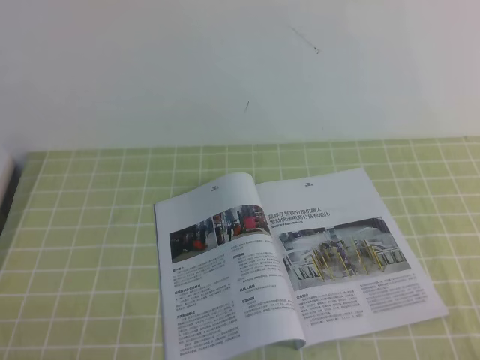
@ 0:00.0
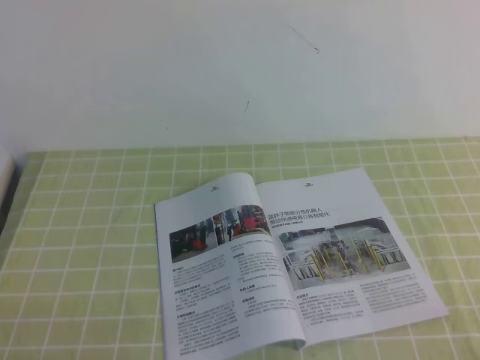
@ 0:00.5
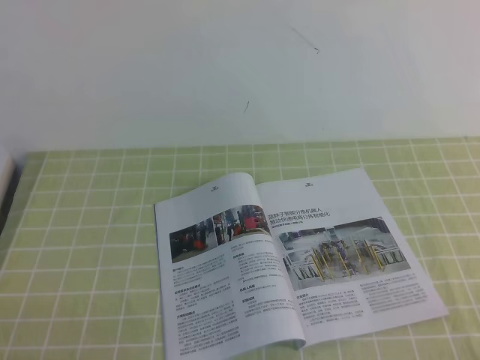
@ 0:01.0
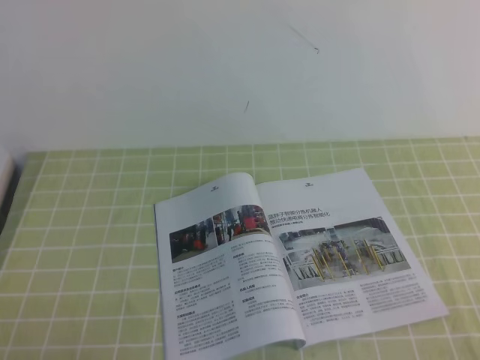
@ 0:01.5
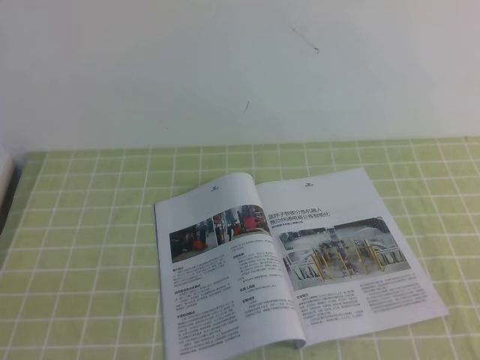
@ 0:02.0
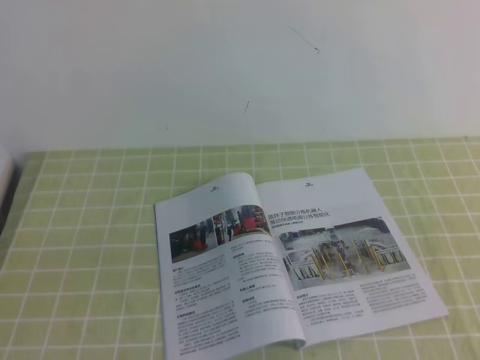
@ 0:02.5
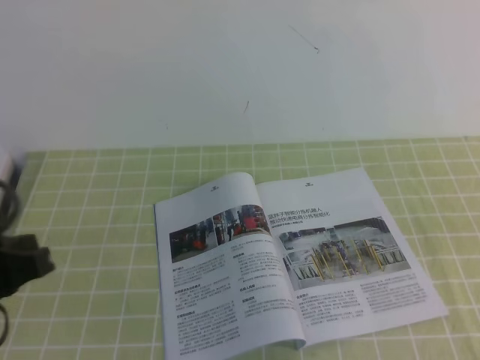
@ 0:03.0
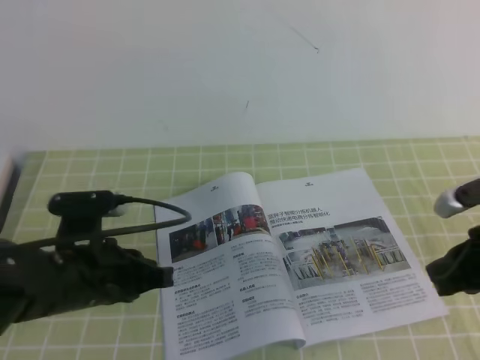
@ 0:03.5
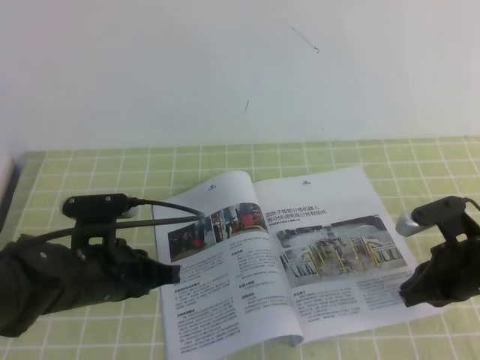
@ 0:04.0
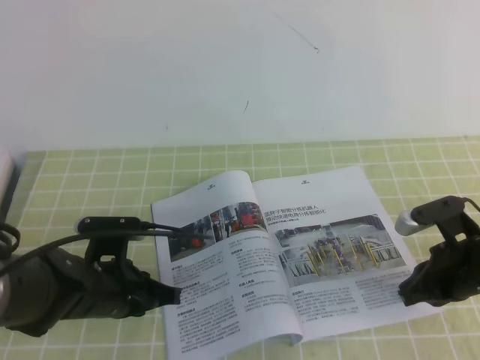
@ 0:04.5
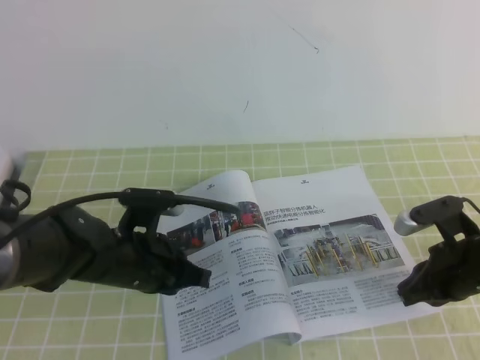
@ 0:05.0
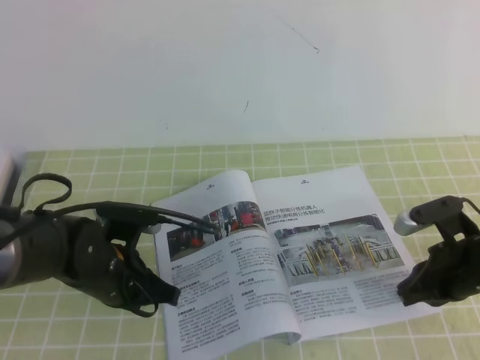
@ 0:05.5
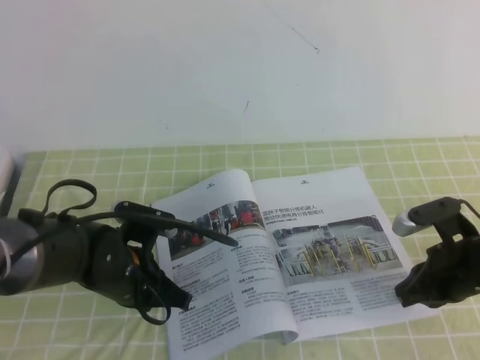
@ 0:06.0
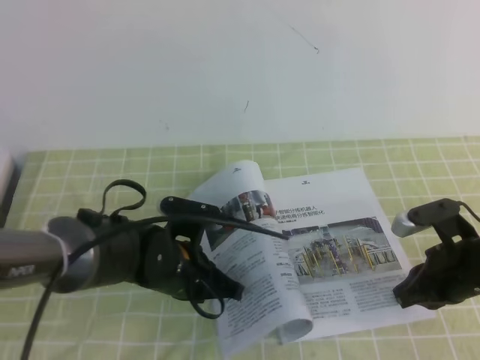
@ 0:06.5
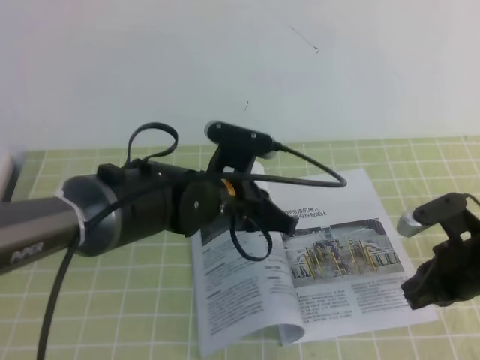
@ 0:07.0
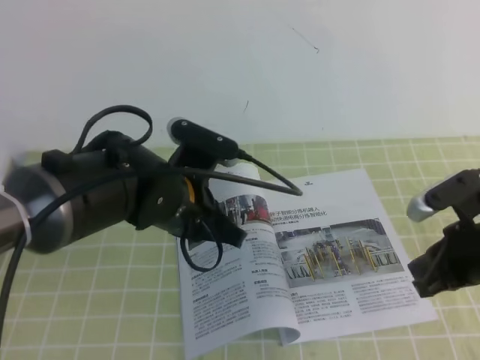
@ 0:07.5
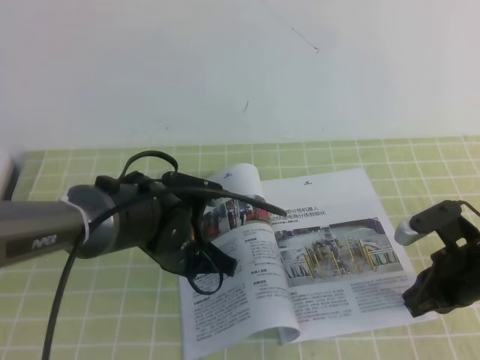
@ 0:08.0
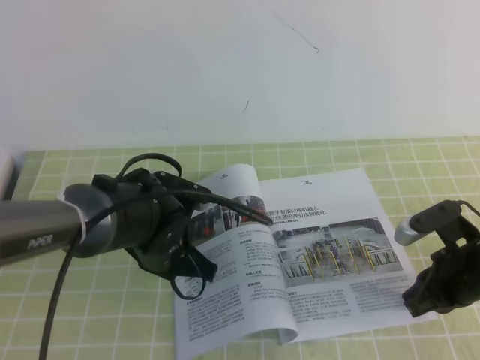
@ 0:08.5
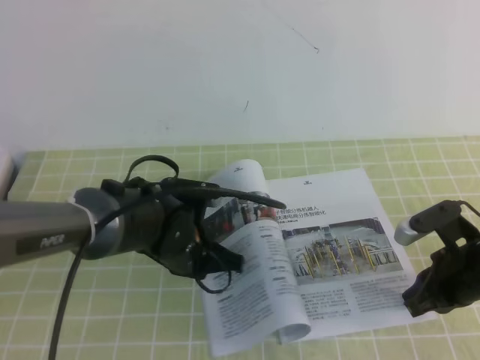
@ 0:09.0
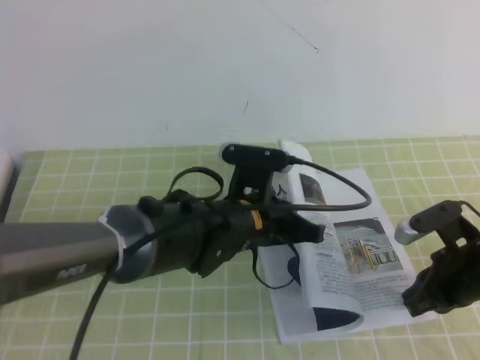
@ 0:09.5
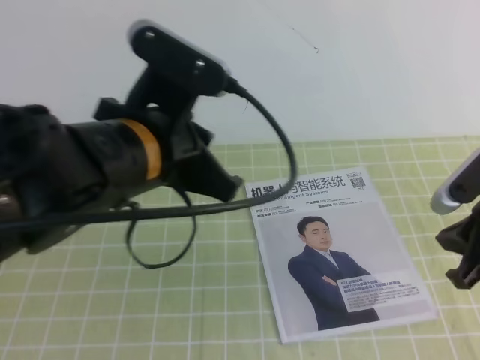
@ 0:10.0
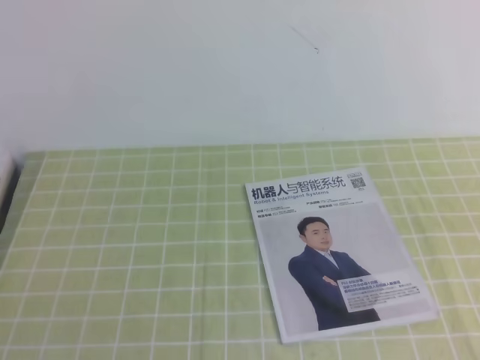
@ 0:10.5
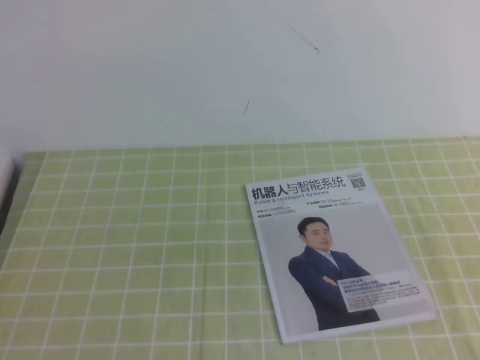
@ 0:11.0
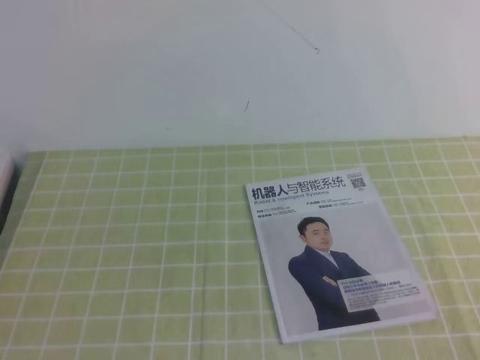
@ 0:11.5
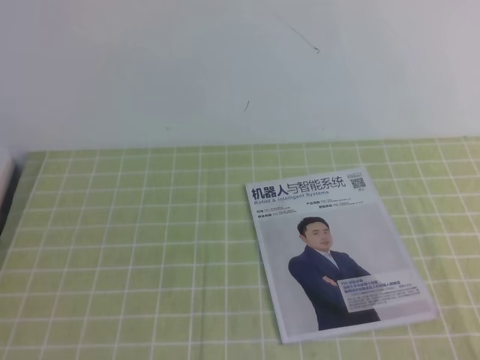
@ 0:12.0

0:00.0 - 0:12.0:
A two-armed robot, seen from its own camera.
Task of the whole recording: on the green tablecloth, hold the book with one hand and close it with the other.
0:02.0 - 0:04.0: The left gripper travels forward and to the right by about 25 cm; the right gripper heads forward and downward, covering roughly 30 cm.
0:04.0 - 0:06.0: The left gripper shifts by roughly 5 cm.
0:06.0 - 0:08.0: The left gripper travels to the right by some 5 cm.
0:08.0 - 0:10.0: The right gripper goes some 10 cm upward, while the left gripper heads upward and backward, covering approximately 20 cm.
0:10.0 - 0:12.0: The left gripper heads backward and to the left, covering roughly 25 cm, while the right gripper goes some 25 cm backward.
